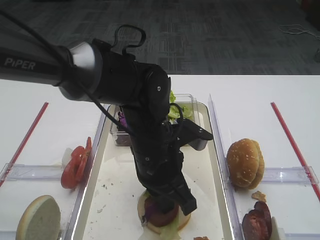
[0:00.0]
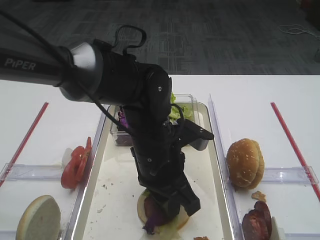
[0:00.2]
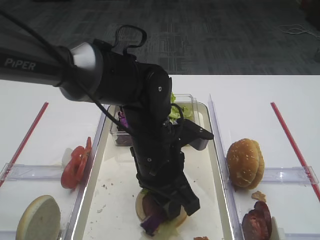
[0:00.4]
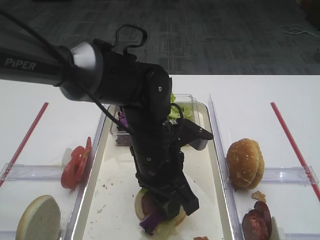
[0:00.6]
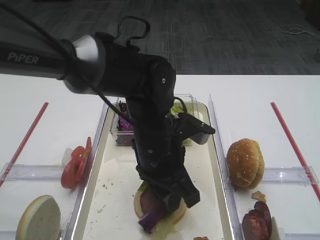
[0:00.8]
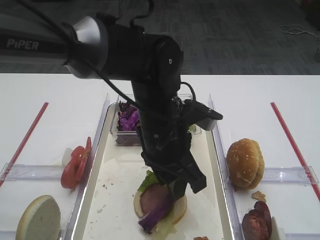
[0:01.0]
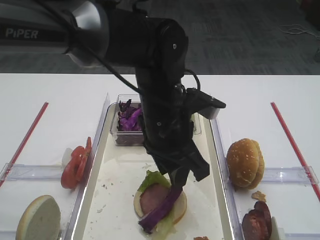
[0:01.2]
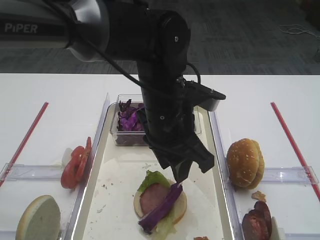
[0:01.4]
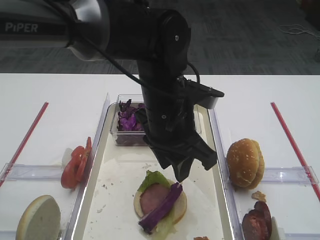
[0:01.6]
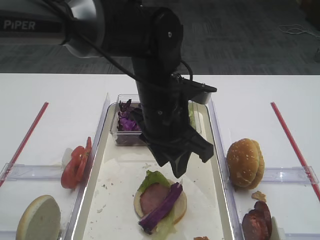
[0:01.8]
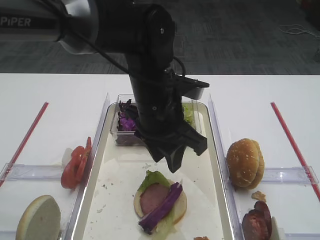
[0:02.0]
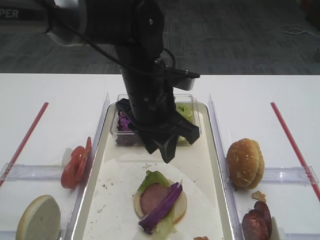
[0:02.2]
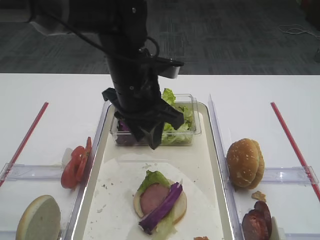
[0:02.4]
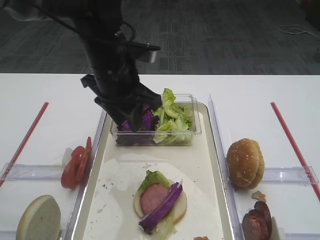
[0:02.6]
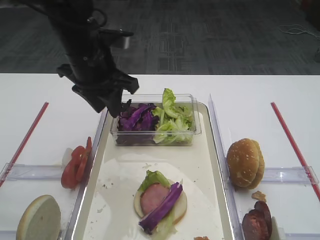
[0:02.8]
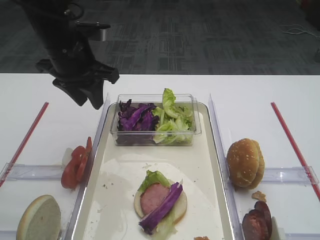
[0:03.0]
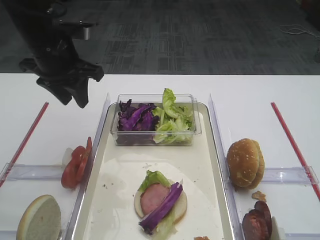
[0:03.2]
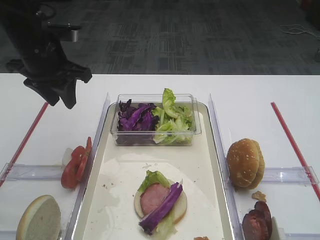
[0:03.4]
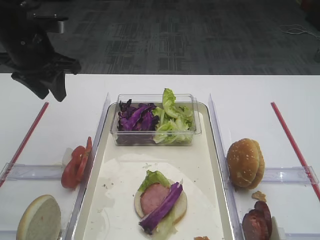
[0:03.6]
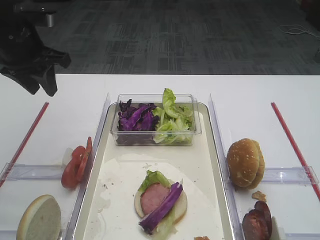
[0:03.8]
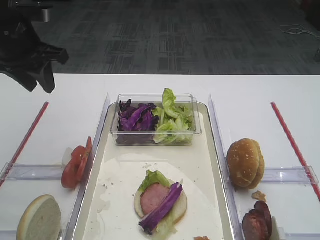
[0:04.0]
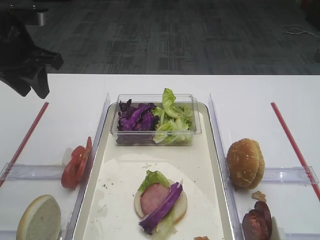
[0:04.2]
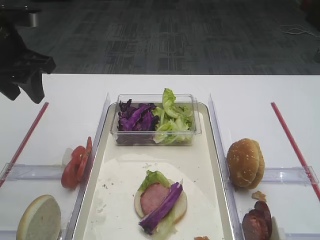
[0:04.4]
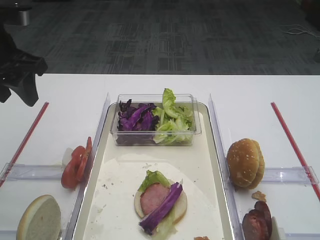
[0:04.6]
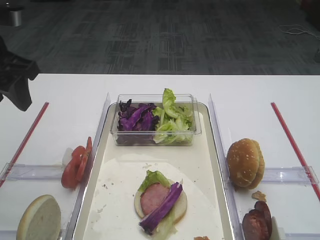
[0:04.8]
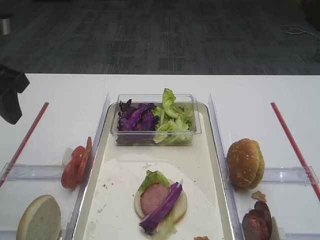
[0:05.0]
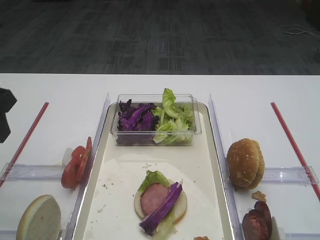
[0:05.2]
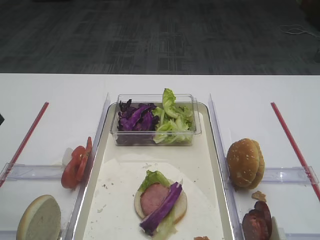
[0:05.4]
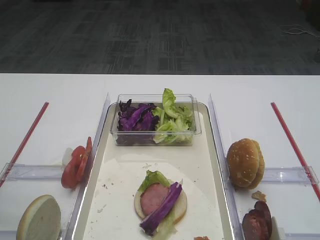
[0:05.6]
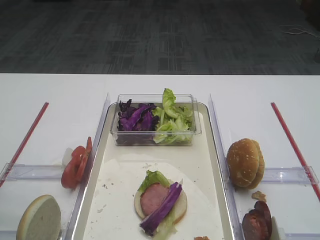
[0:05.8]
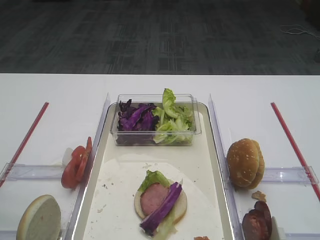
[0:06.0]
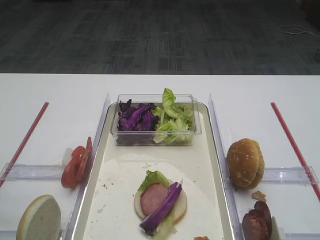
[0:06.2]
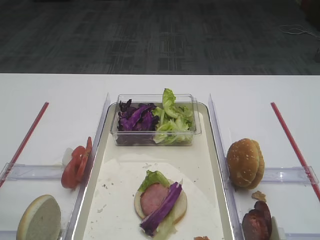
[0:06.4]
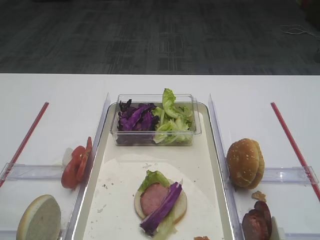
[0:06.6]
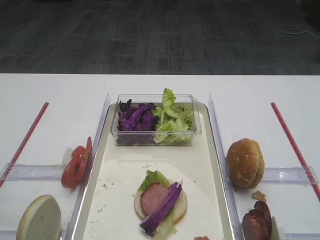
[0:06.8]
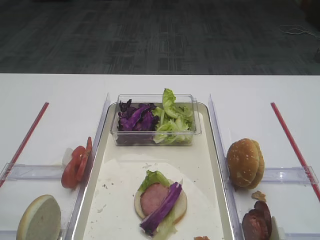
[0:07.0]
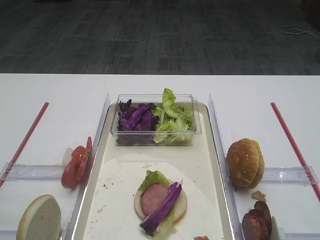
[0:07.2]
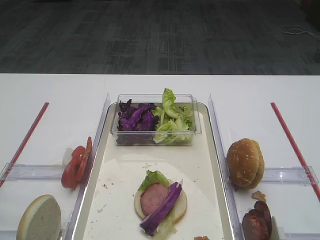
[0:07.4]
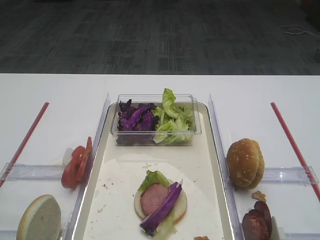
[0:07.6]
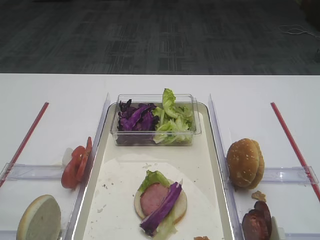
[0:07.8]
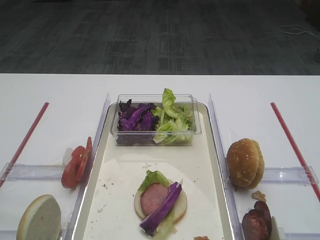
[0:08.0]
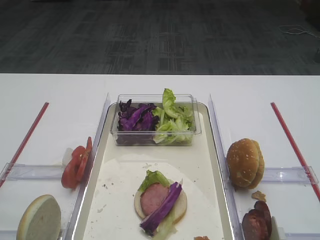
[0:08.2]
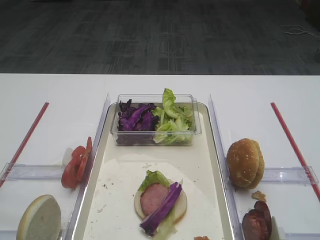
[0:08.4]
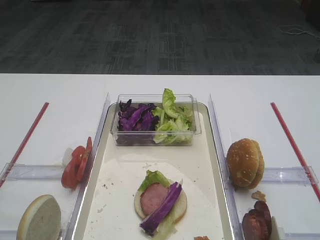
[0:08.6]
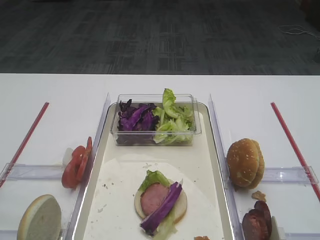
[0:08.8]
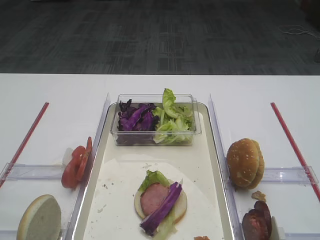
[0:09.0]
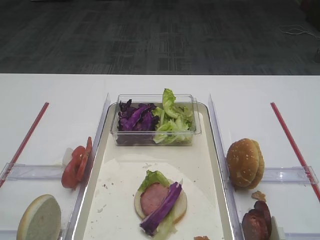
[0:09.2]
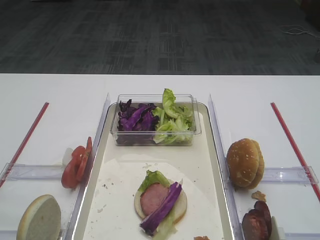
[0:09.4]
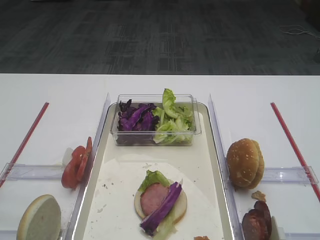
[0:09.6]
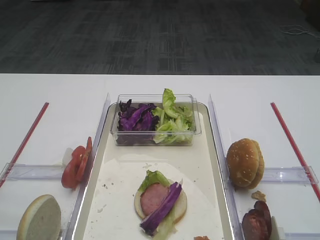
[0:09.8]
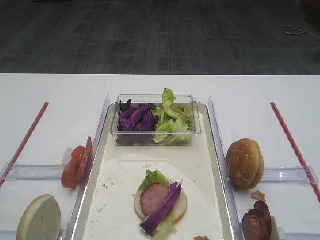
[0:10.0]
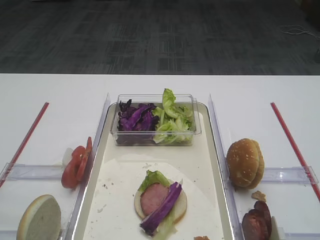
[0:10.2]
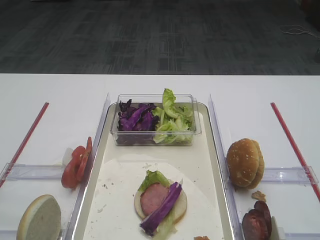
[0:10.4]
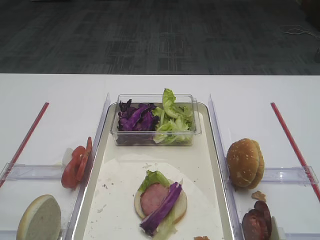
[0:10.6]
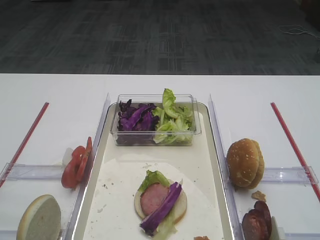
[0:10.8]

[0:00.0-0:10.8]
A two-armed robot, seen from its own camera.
0:00.0 to 0:01.6: The left gripper moves upward, approximately 5 cm, and opens.
0:01.6 to 0:03.0: The left gripper heads to the left and forward, covering about 20 cm.
0:03.0 to 0:04.6: The left gripper heads to the left and backward, covering roughly 10 cm.
0:04.6 to 0:06.2: The left gripper is displaced backward by some 20 cm.
0:09.2 to 0:10.8: Both grippers stay about where they are.

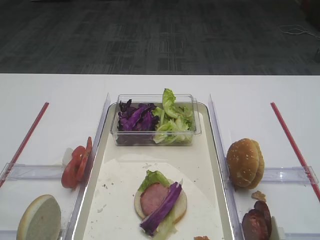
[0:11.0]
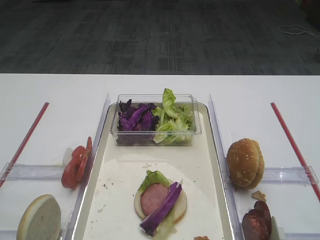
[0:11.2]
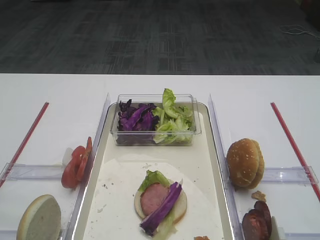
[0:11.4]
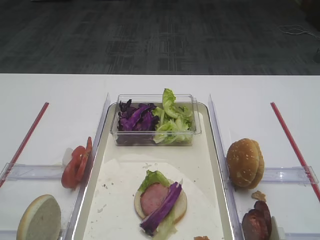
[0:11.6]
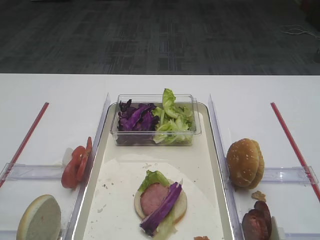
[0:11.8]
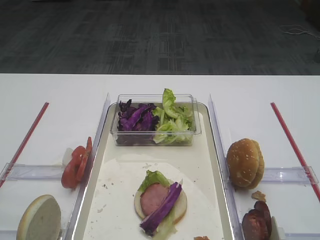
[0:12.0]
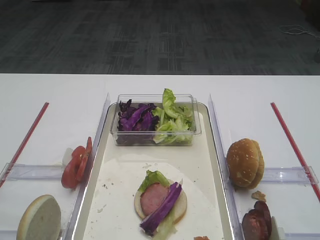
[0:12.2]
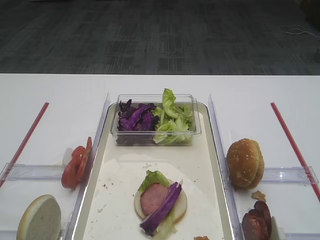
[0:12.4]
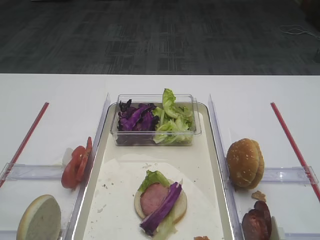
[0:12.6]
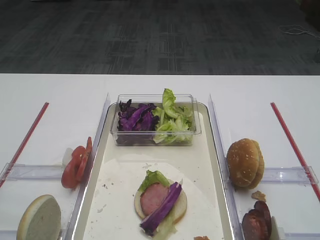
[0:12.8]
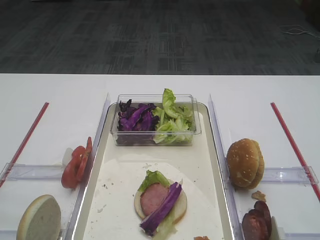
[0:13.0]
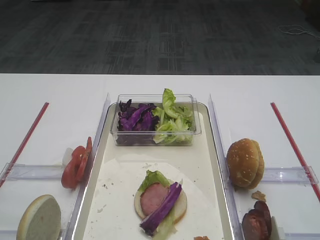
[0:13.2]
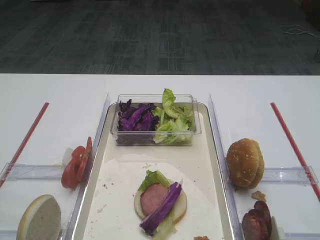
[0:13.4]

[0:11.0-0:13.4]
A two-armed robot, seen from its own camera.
0:11.0 to 0:13.4: The two grippers keep their place.

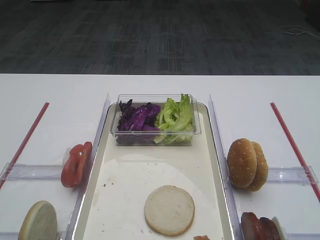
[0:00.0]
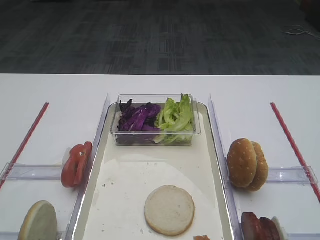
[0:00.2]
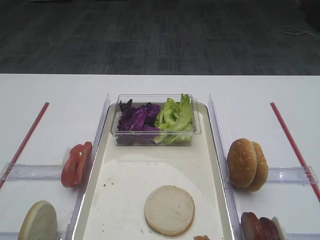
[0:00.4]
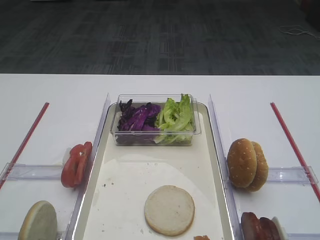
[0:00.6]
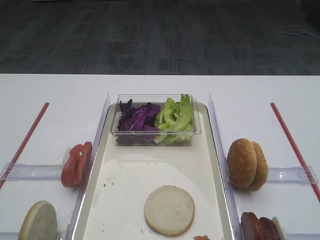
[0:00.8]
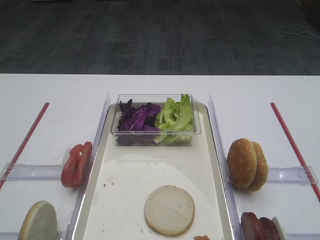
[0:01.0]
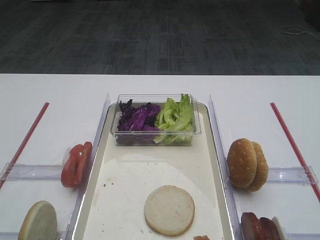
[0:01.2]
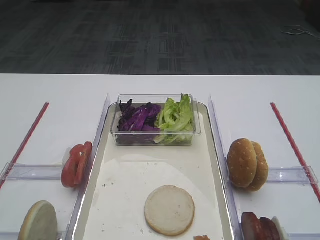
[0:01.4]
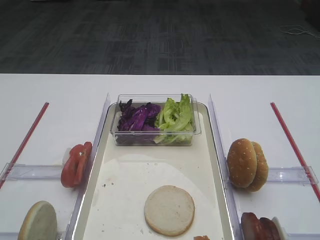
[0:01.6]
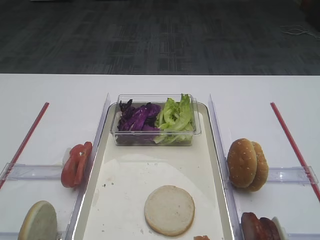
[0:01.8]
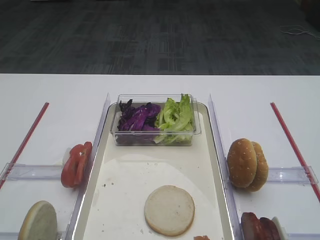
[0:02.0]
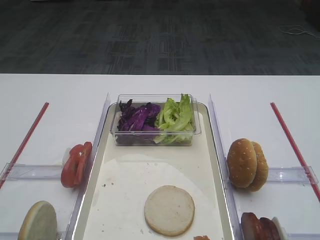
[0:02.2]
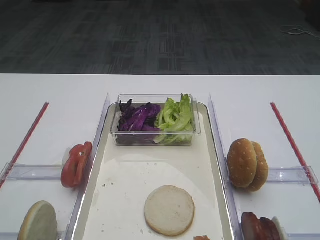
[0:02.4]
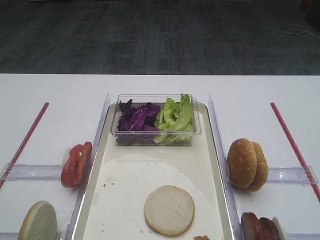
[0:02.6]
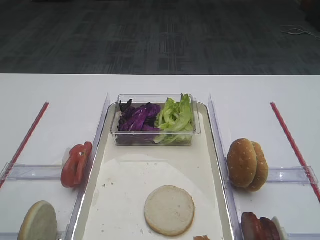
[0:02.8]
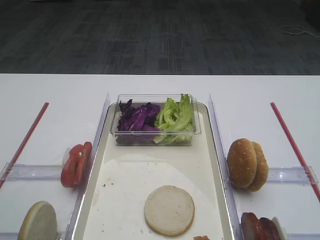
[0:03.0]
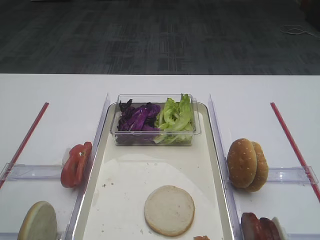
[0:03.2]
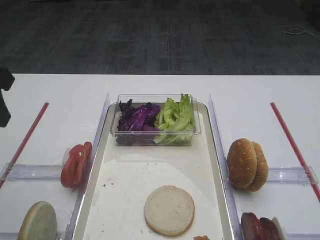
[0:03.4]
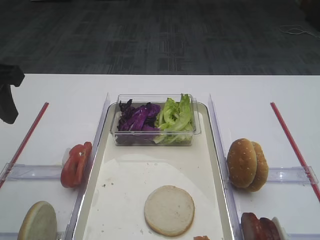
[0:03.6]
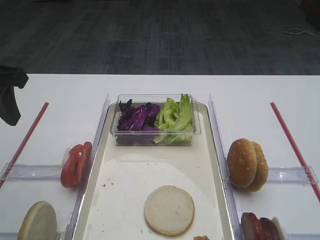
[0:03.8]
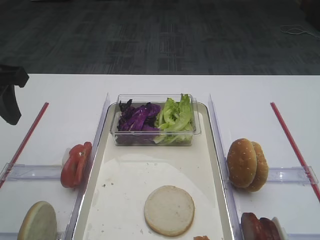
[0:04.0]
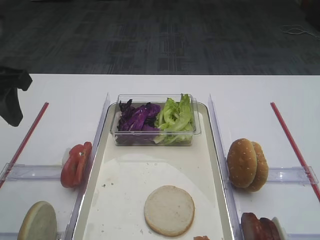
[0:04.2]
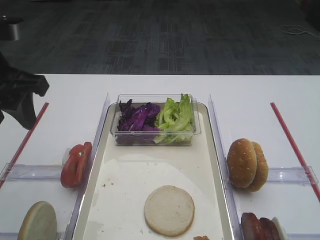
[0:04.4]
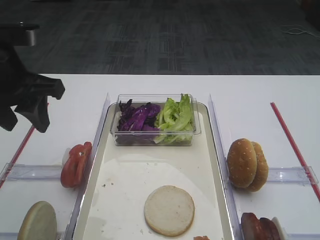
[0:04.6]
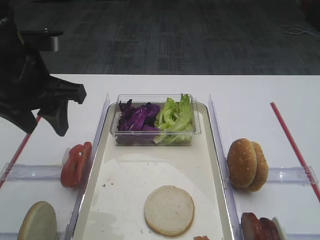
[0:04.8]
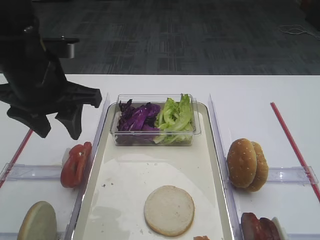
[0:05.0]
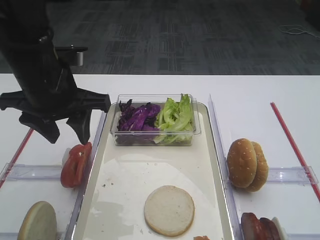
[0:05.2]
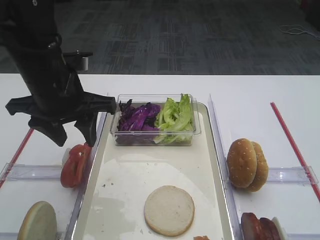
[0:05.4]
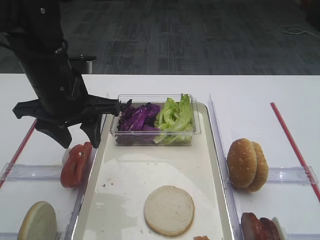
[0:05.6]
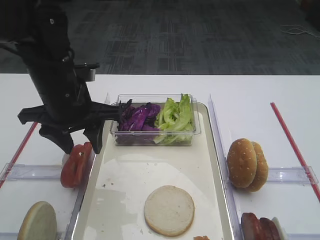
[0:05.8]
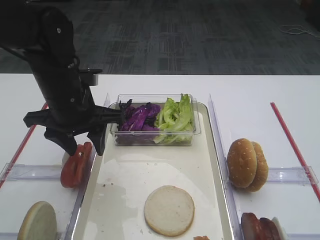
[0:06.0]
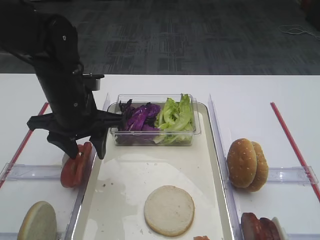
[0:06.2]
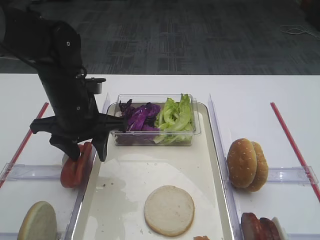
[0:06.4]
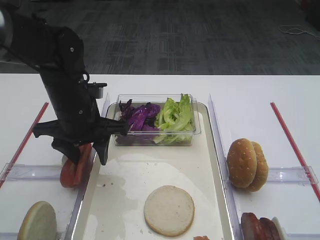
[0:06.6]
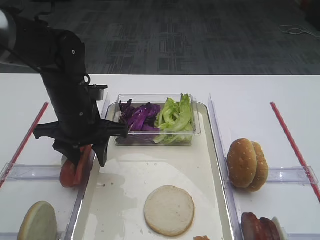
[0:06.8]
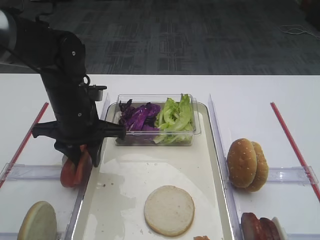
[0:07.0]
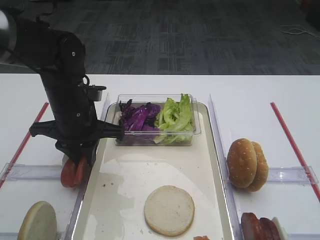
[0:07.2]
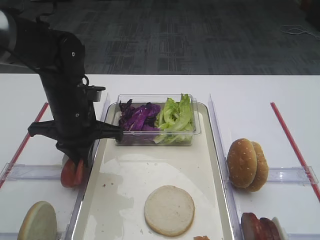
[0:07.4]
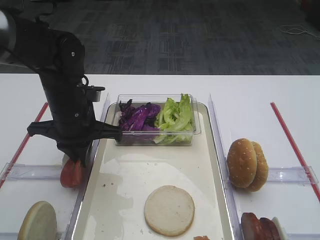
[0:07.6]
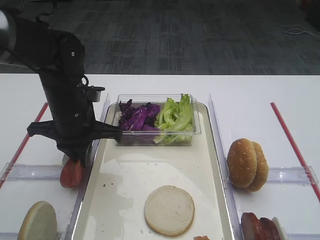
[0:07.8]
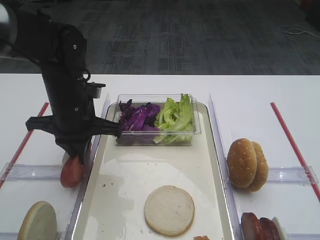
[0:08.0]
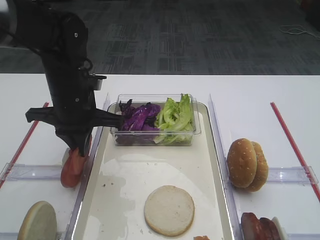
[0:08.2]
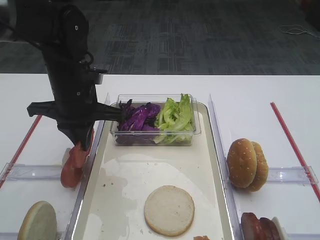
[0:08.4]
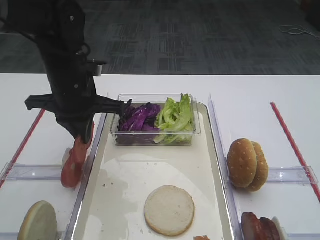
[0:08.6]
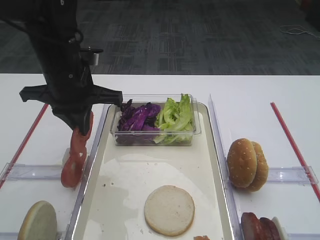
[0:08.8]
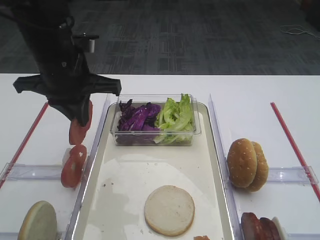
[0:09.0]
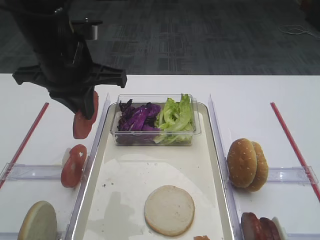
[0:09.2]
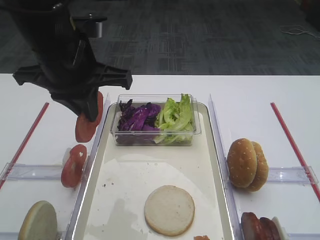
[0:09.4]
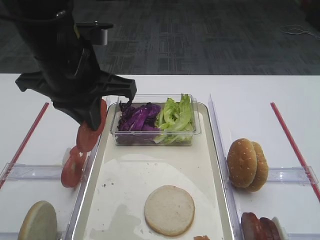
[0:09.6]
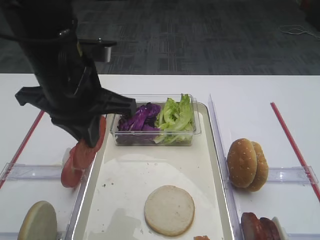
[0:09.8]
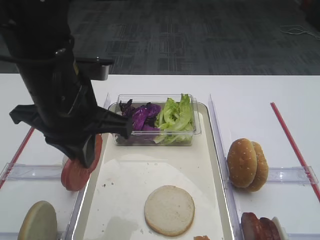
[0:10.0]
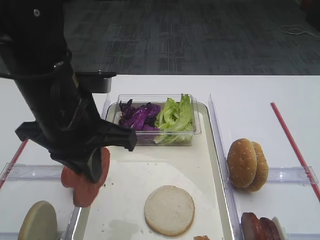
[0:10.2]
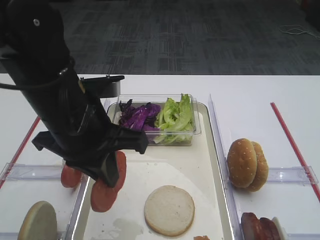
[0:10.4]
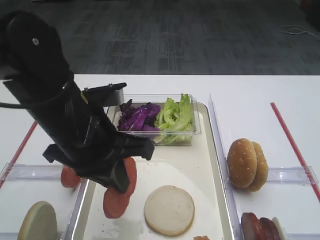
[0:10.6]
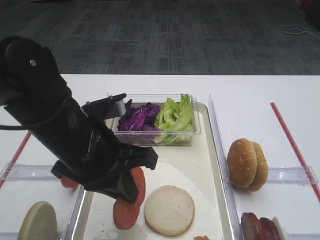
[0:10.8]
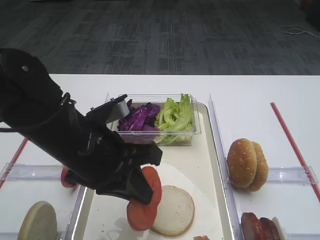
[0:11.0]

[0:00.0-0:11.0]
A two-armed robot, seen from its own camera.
Step, 0:00.0 to 0:08.6: Pick up the tomato slice with the left gripper.
0:03.2 to 0:04.8: The left gripper moves to the right and forward, roughly 10 cm.
0:04.8 to 0:06.2: The left gripper moves downward, roughly 10 cm.
0:06.2 to 0:07.8: The left gripper closes.
0:07.8 to 0:09.4: The left gripper is displaced upward by some 15 cm.
0:09.4 to 0:11.0: The left gripper shifts approximately 10 cm downward and backward.
